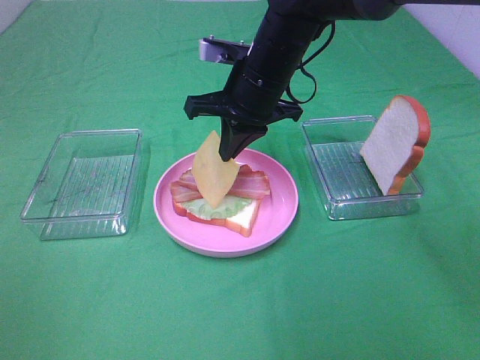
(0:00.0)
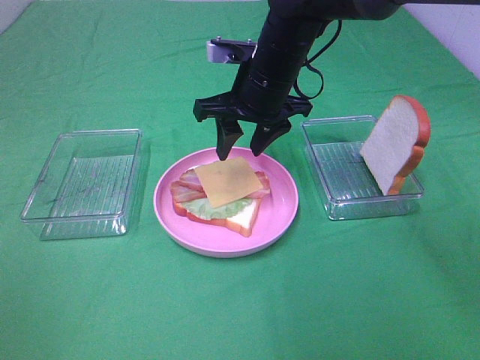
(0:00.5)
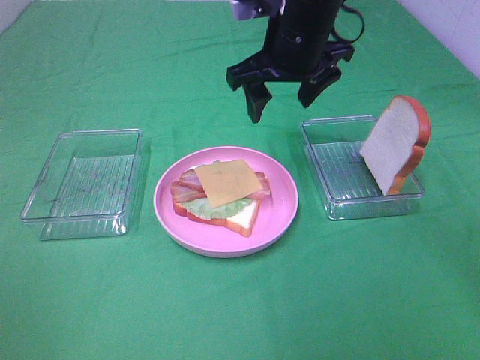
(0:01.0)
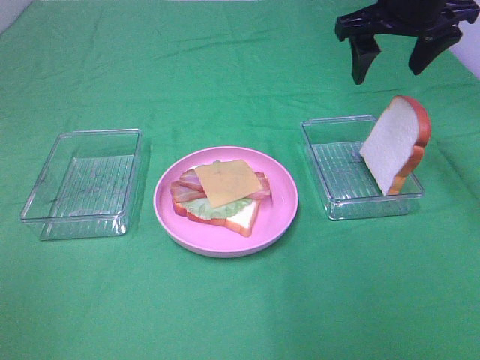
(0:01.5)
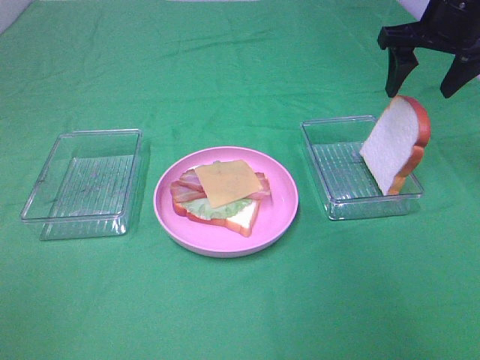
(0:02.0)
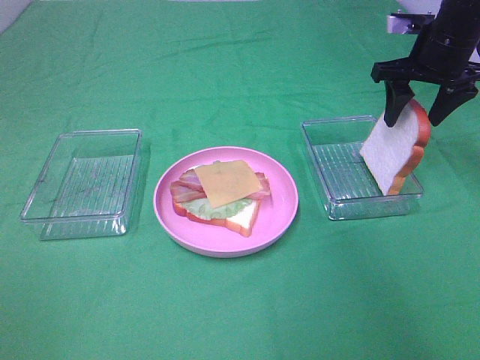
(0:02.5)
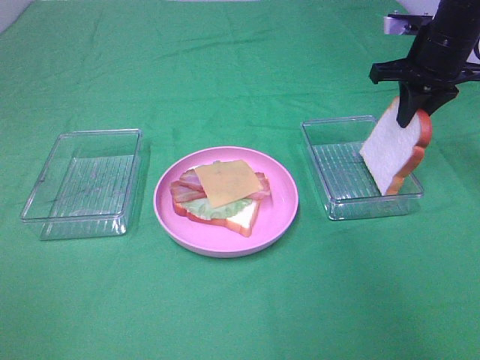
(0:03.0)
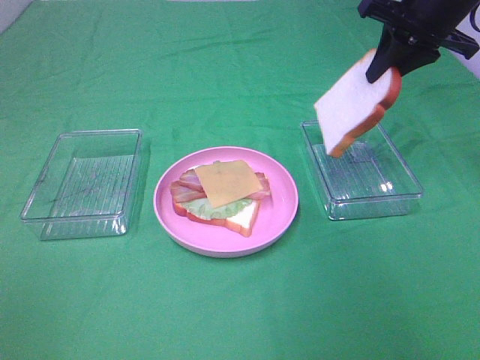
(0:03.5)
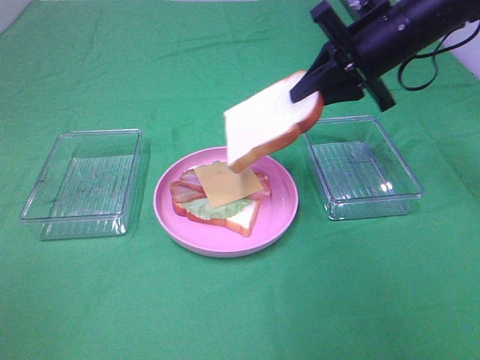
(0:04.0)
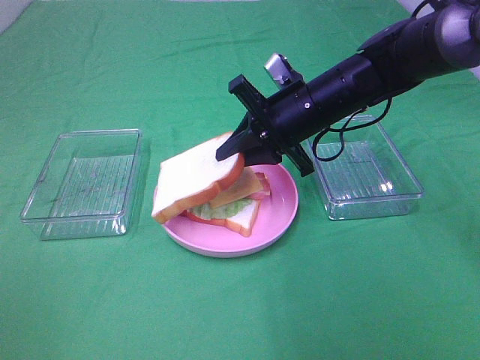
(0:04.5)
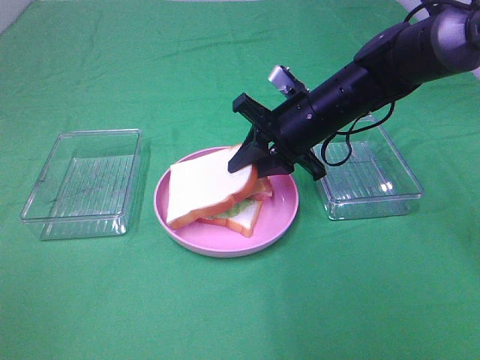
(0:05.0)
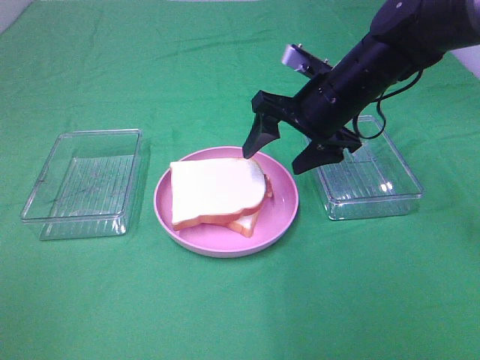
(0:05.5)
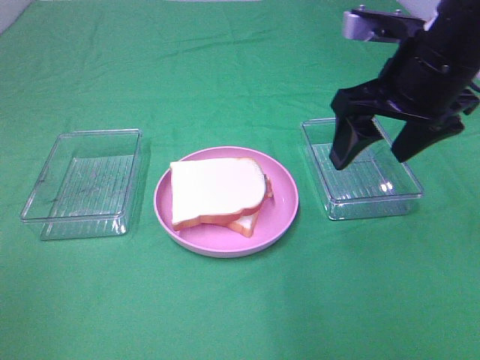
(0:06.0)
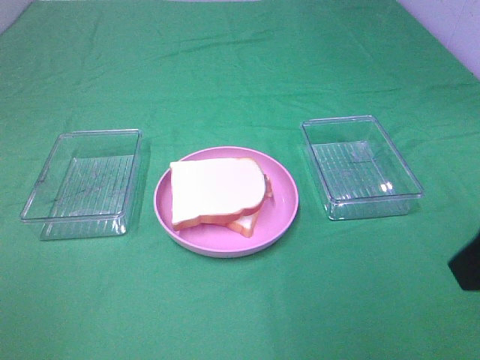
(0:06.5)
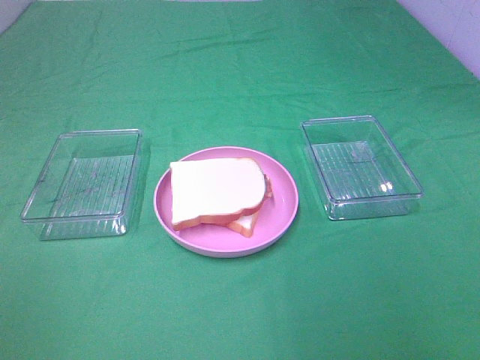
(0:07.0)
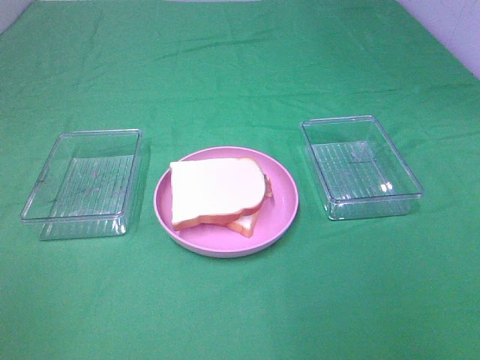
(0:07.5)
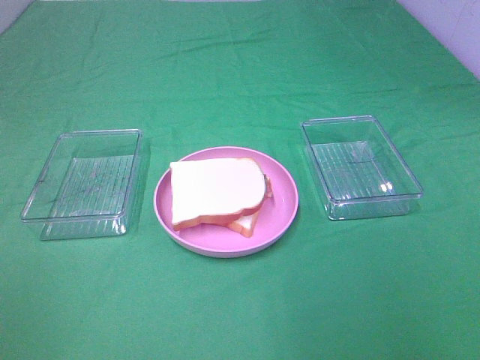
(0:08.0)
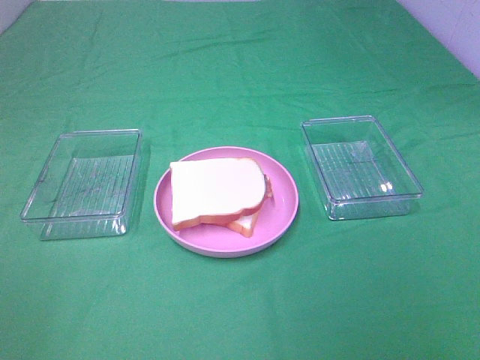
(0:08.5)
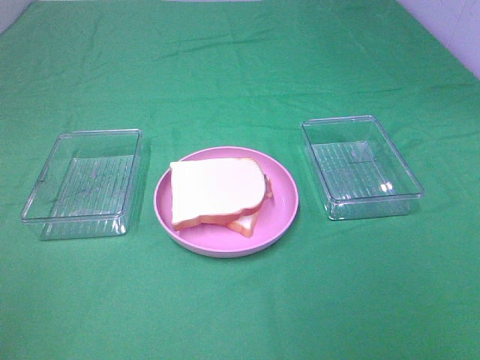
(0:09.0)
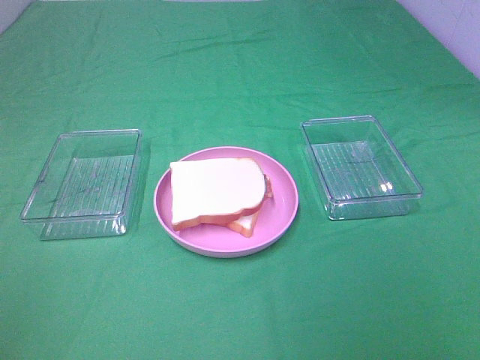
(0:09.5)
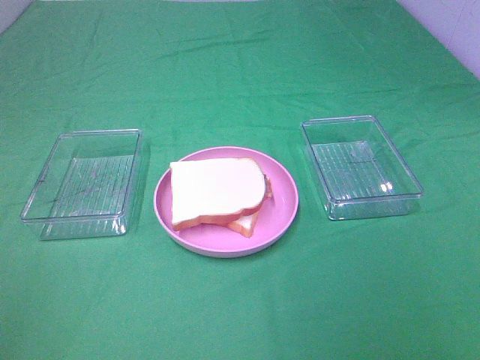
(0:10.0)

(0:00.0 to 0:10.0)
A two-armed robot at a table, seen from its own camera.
Task of the whole recording: Make sandwiches.
Step, 0:01.0 - 0:03.0: Right hand:grab the bread slice.
Step, 0:03.5 - 0:05.0: Right hand:place the bread slice on the cheese slice.
0:00.0 - 0:02.0: The right gripper moves to the right, approximately 20 cm, and opens.
0:02.0 - 0:04.0: The right gripper shifts about 10 cm to the left, and closes up.
0:04.0 - 0:06.0: The right gripper heads backward, covering about 10 cm, moves roughly 10 cm downward and comes back, and opens its fingers.
0:06.0 - 0:08.0: The right gripper goes approximately 30 cm backward.

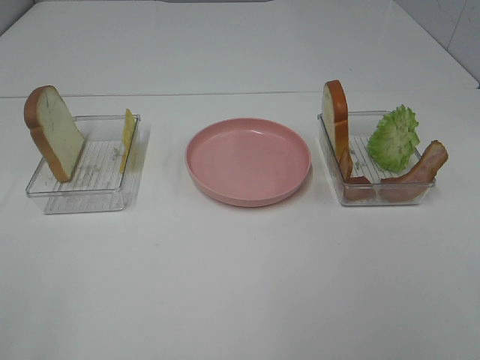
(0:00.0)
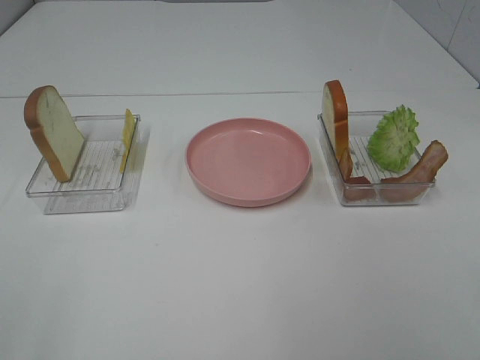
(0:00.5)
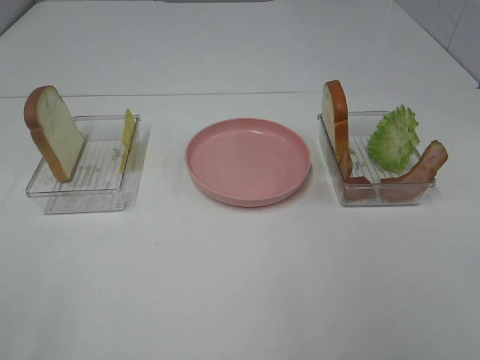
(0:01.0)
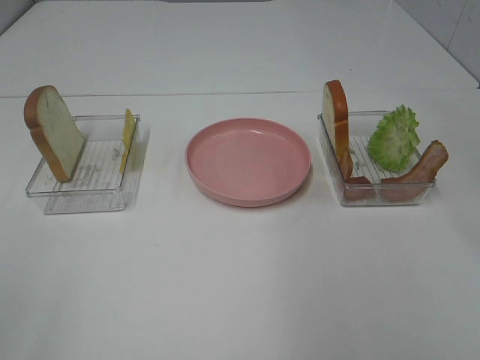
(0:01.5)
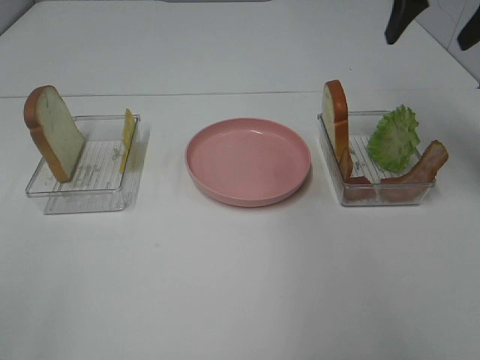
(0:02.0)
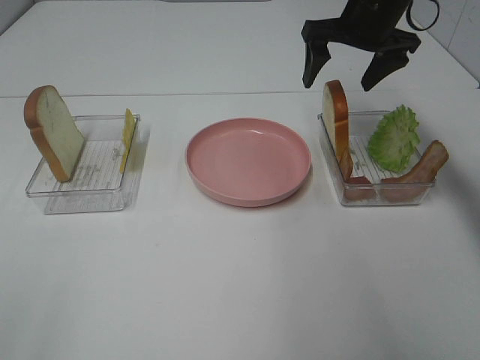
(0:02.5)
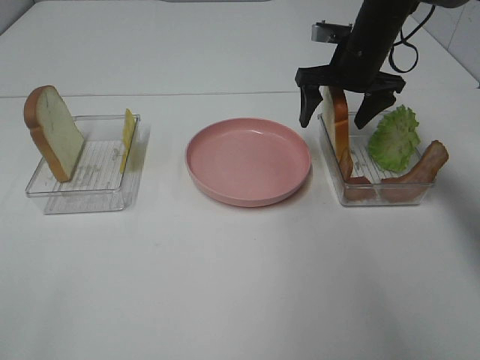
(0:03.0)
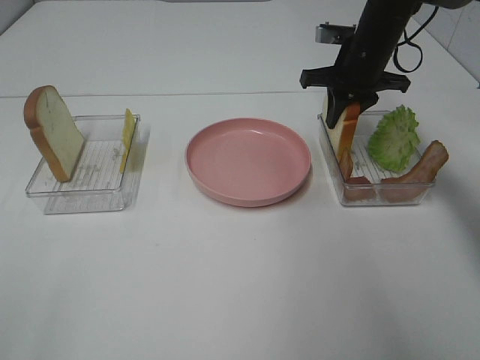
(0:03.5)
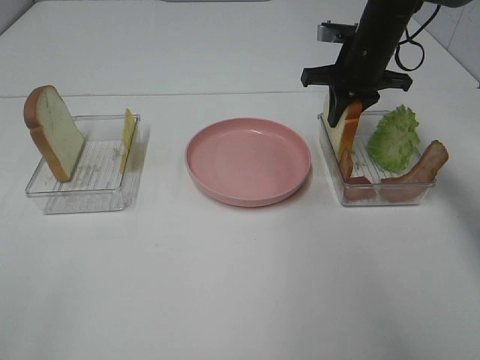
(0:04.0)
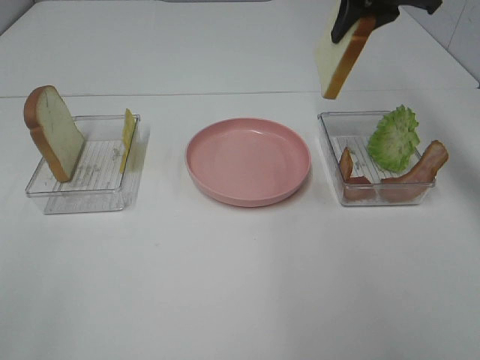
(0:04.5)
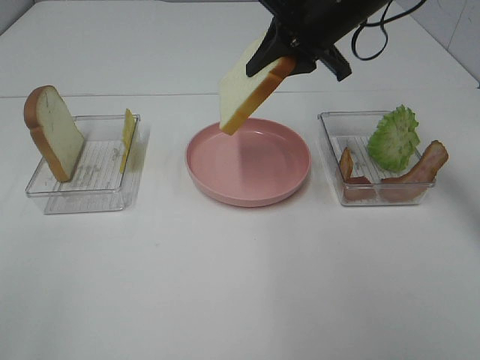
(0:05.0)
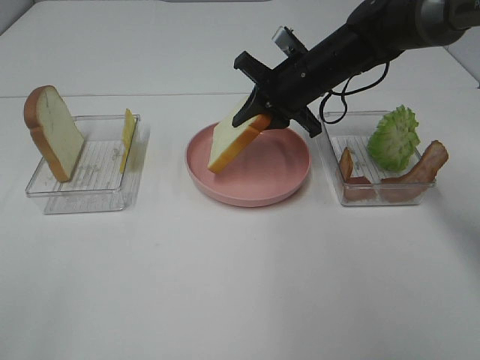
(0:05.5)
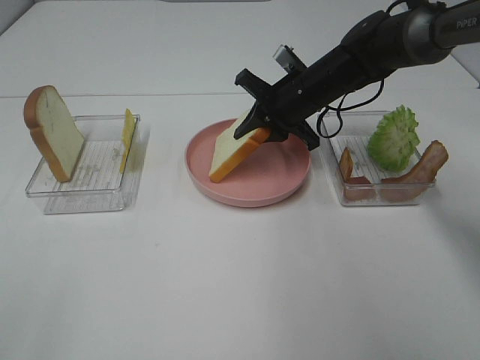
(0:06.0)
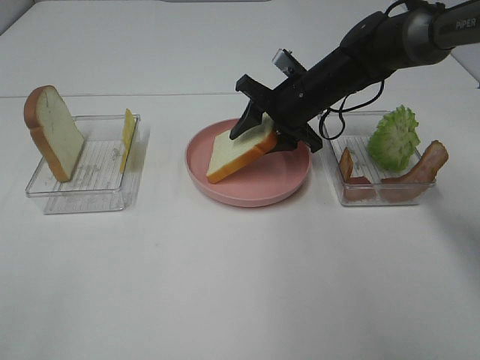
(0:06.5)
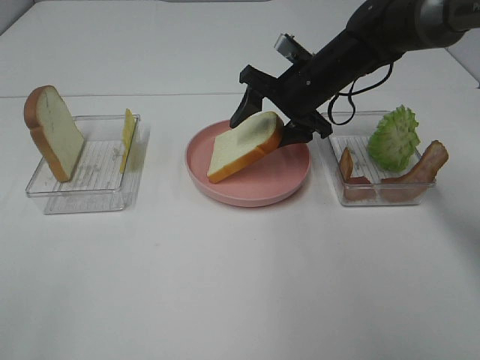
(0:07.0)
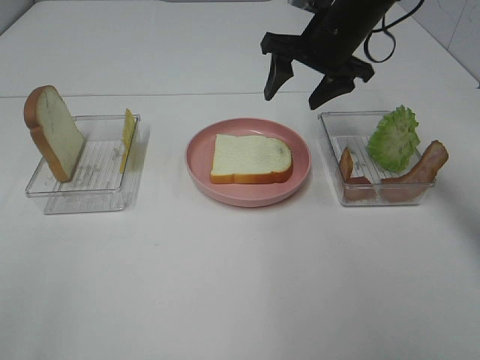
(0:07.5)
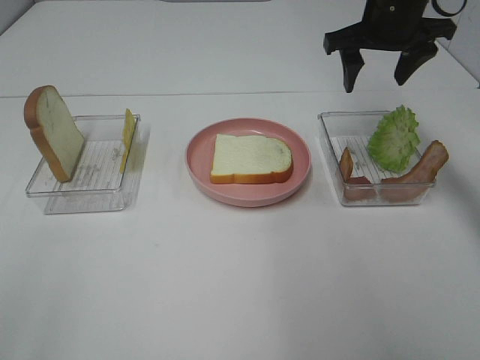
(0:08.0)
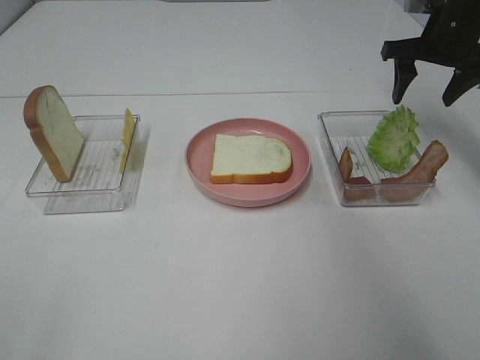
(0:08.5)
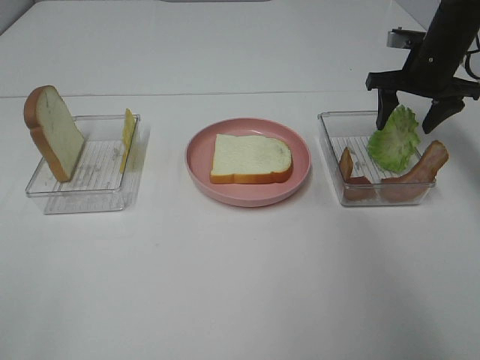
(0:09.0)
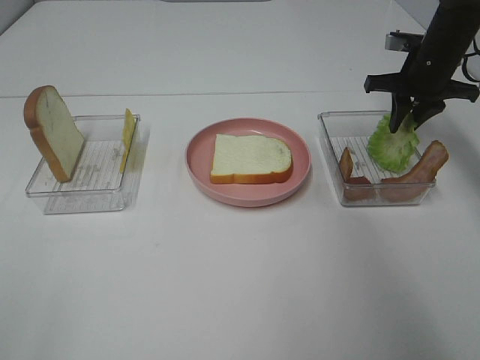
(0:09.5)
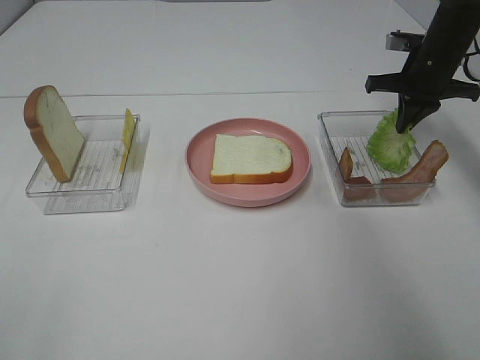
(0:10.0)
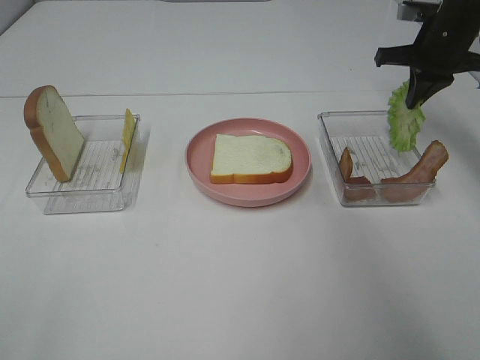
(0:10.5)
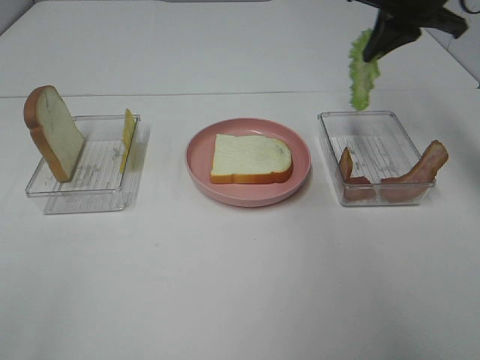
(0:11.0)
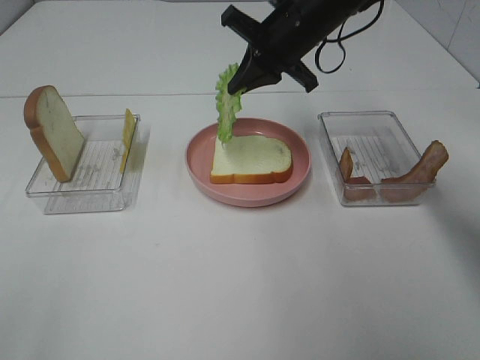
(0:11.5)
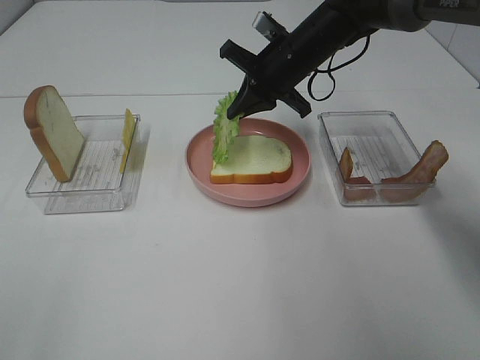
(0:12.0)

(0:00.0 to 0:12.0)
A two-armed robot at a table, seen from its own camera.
Task of the whole recording: Make sandwiches.
Step, 0:00.0 - 0:04.0: Right hand:grab the bread slice.
Step, 0:04.5 - 0:07.5: Right hand:place the bread slice on the plate.
Step, 0:08.0 - 0:10.0: Right hand:grab the lettuce slice.
0:00.0 - 0:02.0: The right gripper goes approximately 40 cm forward.
0:02.0 - 0:04.0: The right gripper travels downward, forward and to the left by about 15 cm, and closes up.
0:04.0 - 0:06.0: The right gripper goes some 10 cm to the left, and reaches approximately 15 cm upward, then returns.
0:06.0 - 0:08.0: The right gripper shifts about 15 cm upward and to the right, and opens.
0:08.0 - 0:10.0: The right gripper shifts some 10 cm downward and to the right, and closes.
0:10.0 - 0:12.0: The right gripper travels to the left by approximately 20 cm.

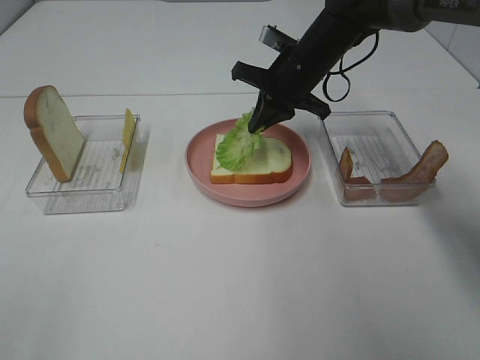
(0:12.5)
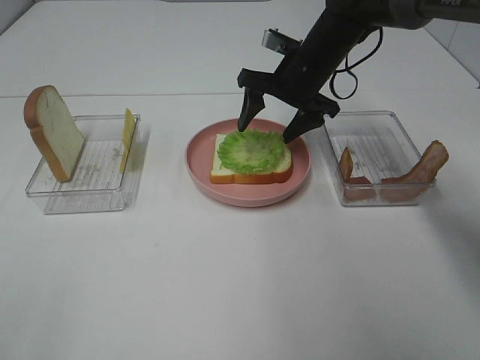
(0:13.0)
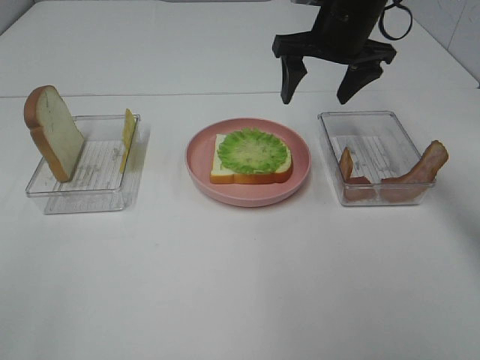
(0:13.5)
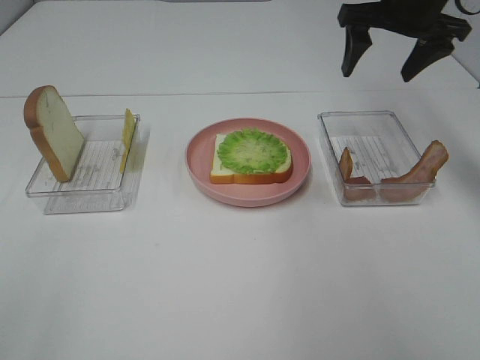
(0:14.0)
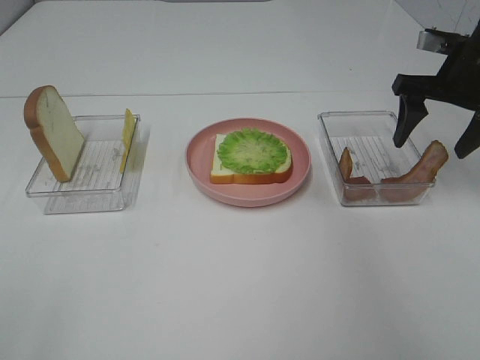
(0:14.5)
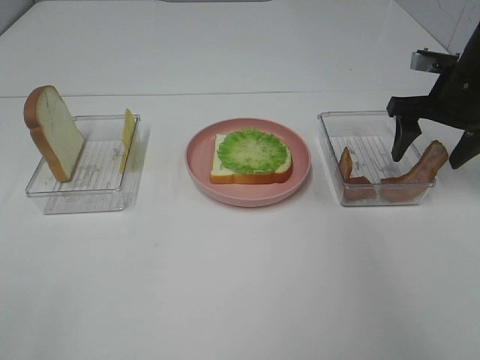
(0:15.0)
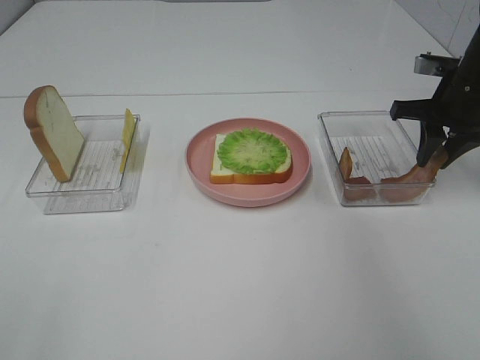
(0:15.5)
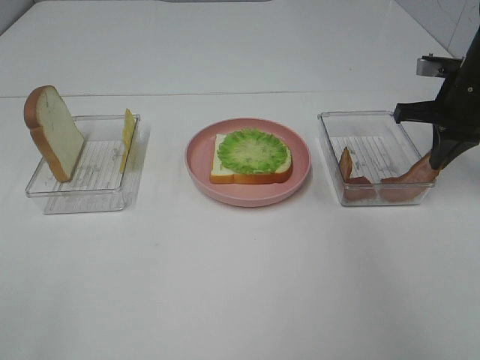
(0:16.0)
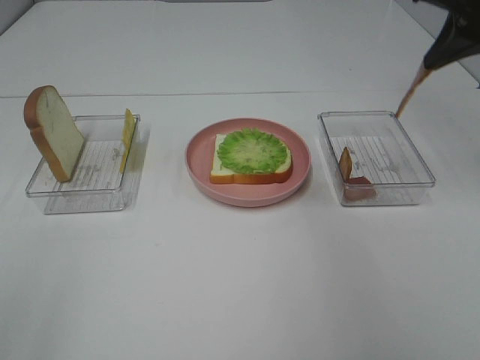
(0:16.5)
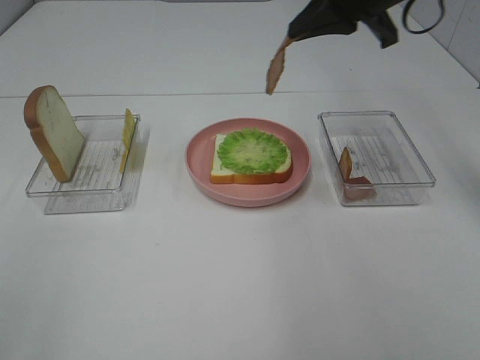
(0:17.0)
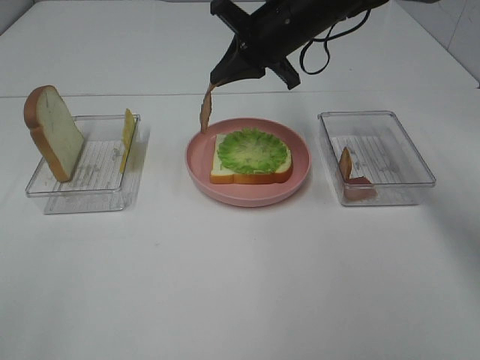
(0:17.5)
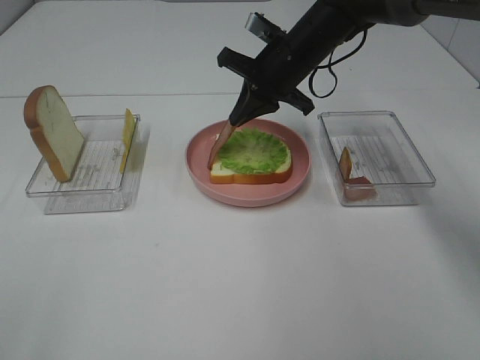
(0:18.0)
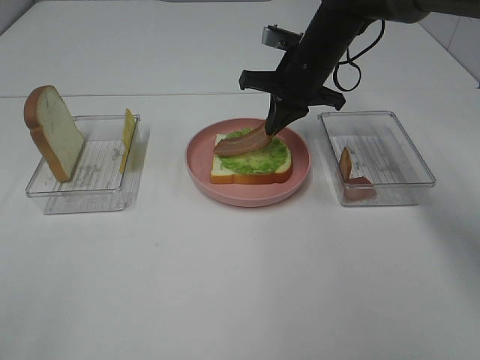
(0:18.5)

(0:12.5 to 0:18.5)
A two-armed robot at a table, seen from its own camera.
Task of the whole recording: Make sandwiches.
Step, 0:14.0 - 0:16.0: Right hand:grab the bacon.
0:12.5 - 0:14.5: The right gripper goes about 20 cm to the right, and opens.
0:14.5 - 0:16.5: The right gripper moves upward, roughly 10 cm, and closes.
0:16.5 - 0:18.5: The right gripper shifts roughly 25 cm to the left, downward and forward.
